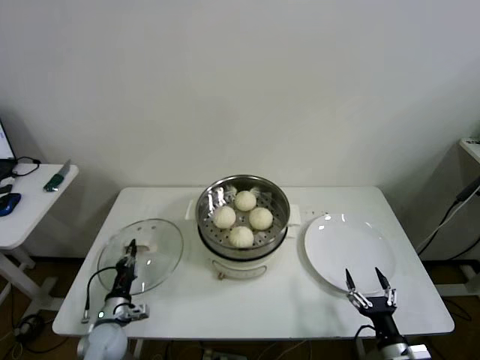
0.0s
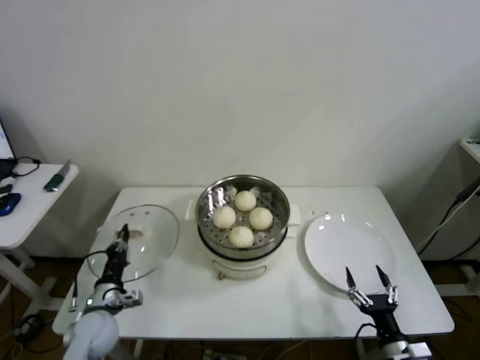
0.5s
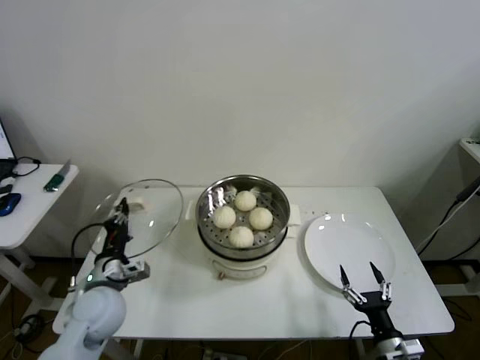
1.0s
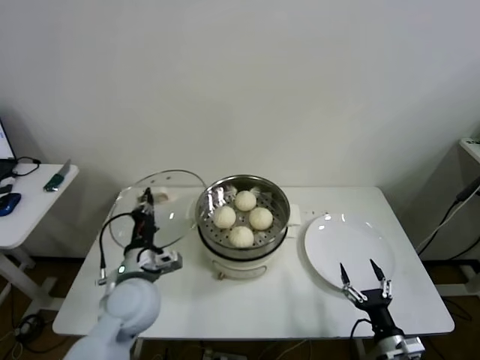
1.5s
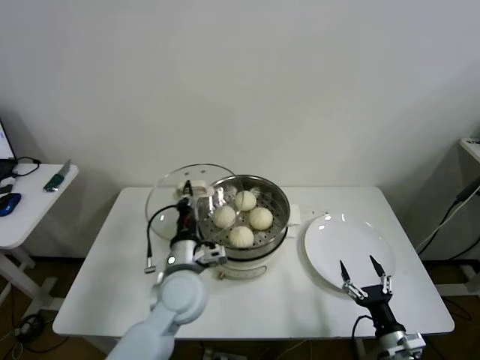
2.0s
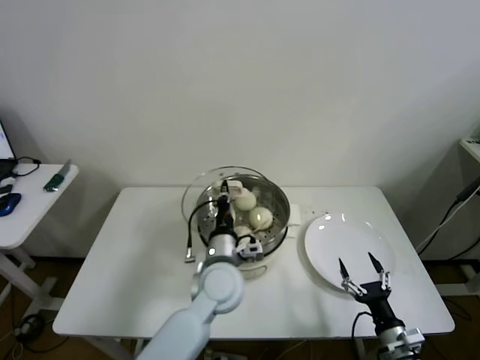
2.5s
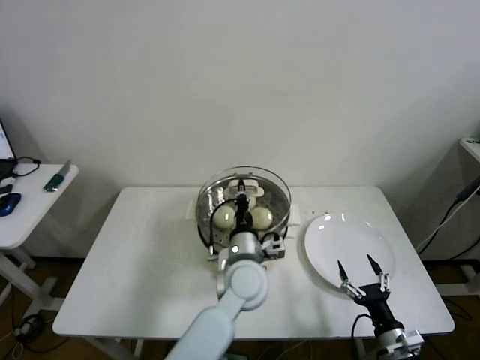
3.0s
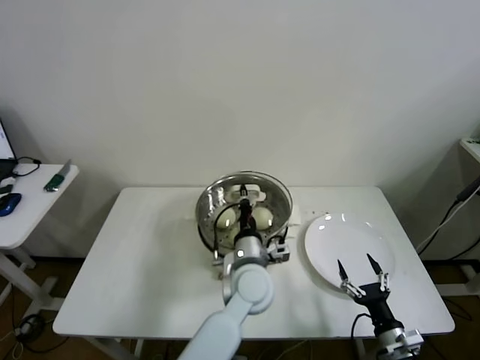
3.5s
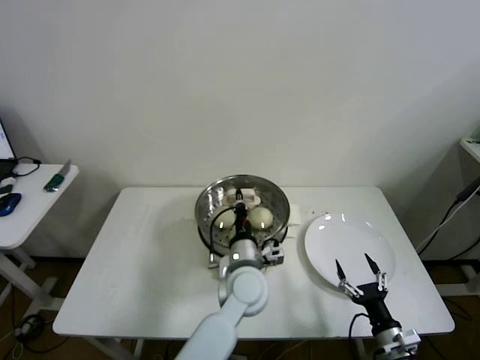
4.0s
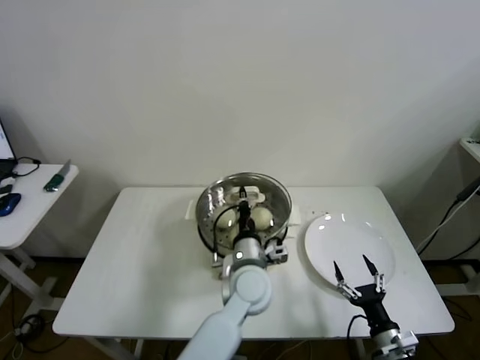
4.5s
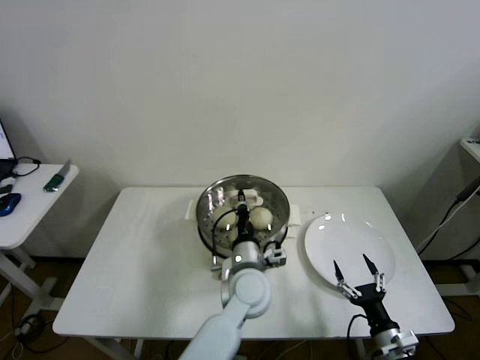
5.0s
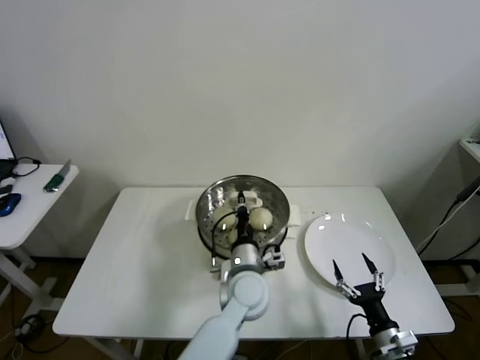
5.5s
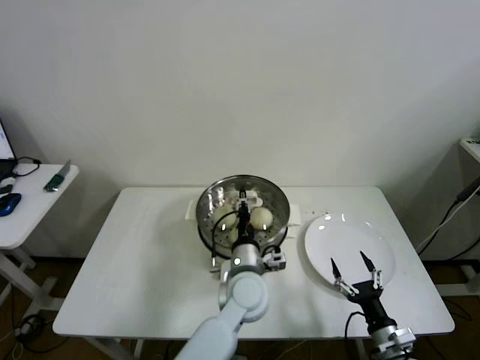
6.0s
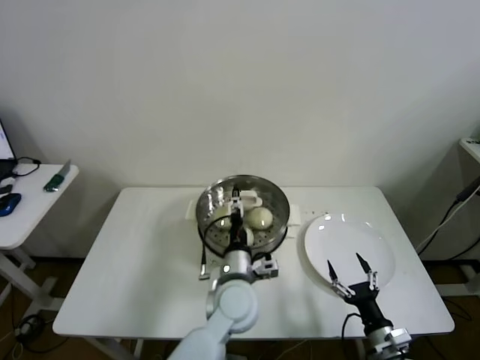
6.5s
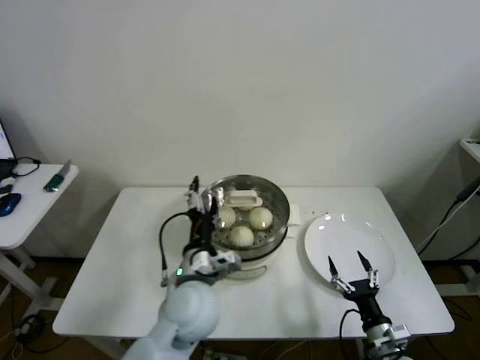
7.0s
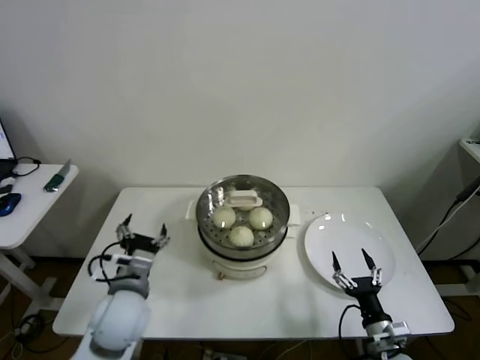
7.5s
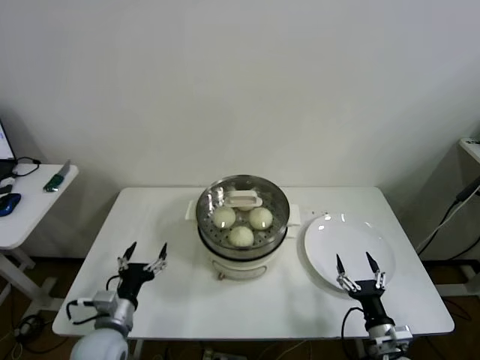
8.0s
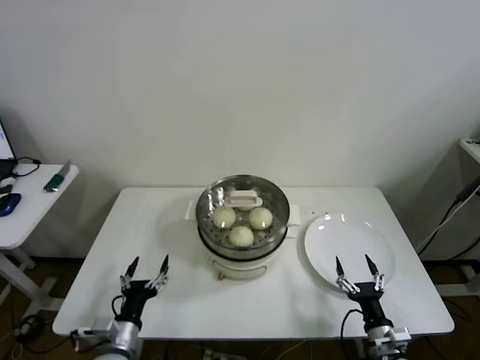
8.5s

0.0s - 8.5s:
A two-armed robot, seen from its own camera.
Step, 0.0s - 5.5s: Place the pot lid on the steamer with left gripper.
0.0s - 2.0s: The left gripper moves upward and to the right, roughly 30 cm.
2.0s - 4.0s: The left gripper goes roughly 15 cm to the right.
4.0s - 6.5s: The left gripper opens its fingers.
6.5s - 8.5s: The left gripper is displaced to the left and backward by about 30 cm.

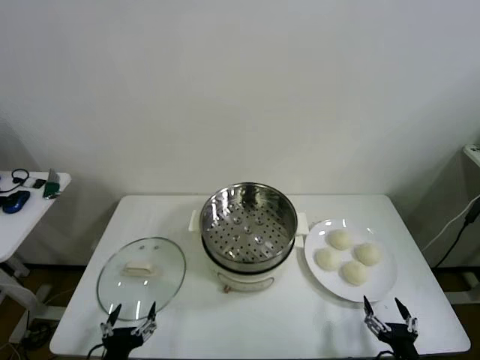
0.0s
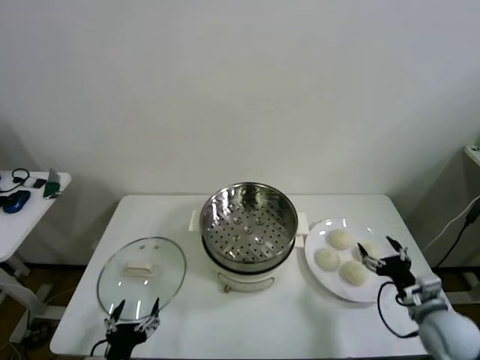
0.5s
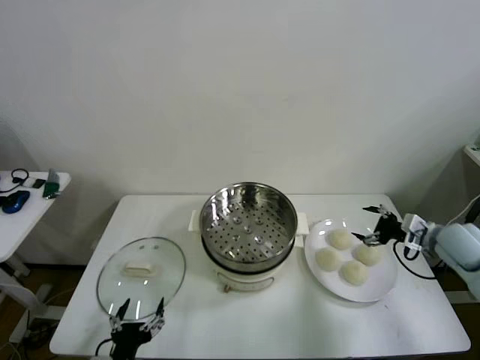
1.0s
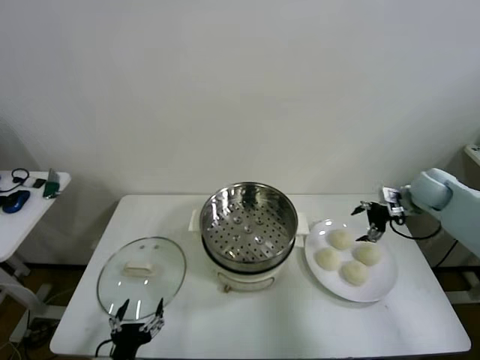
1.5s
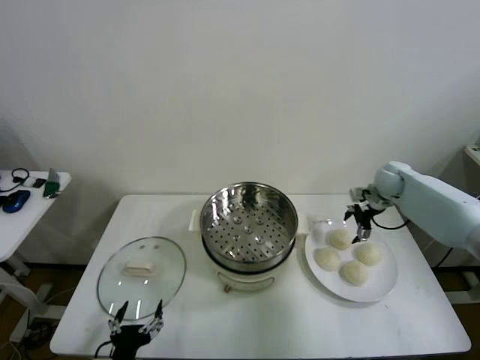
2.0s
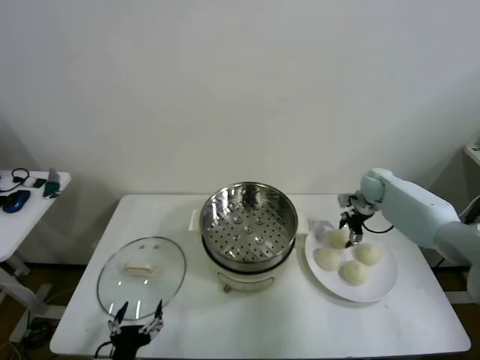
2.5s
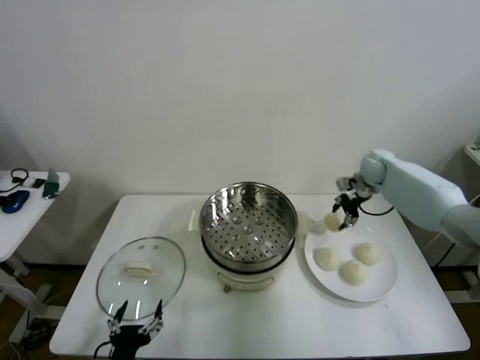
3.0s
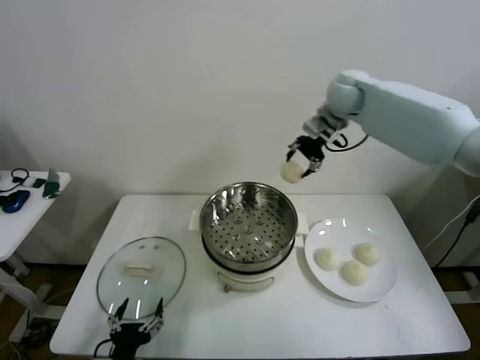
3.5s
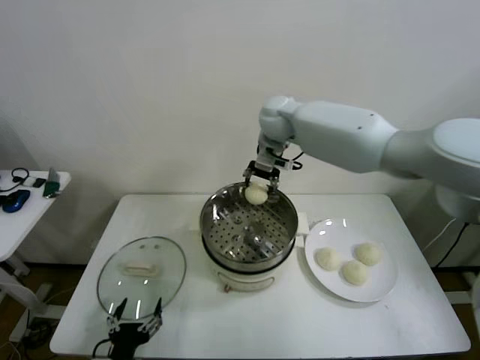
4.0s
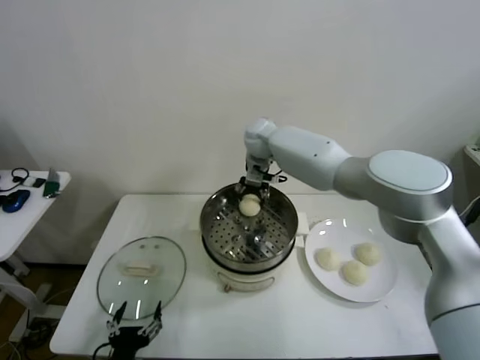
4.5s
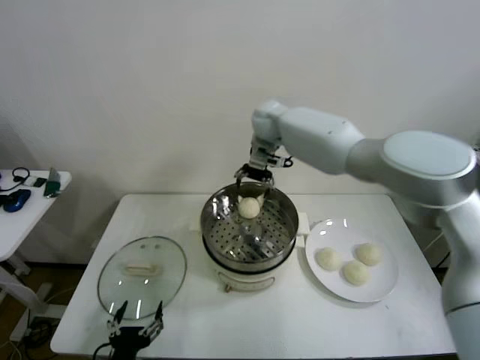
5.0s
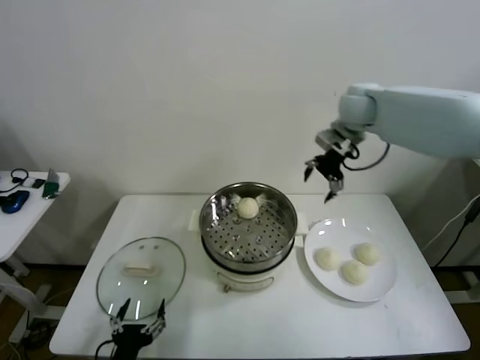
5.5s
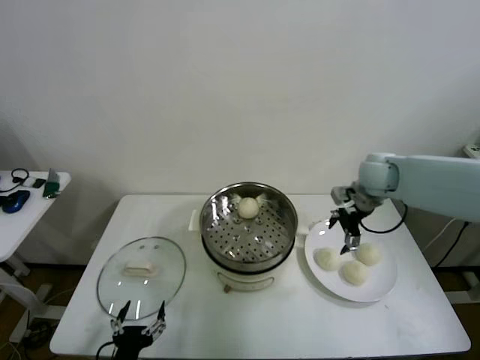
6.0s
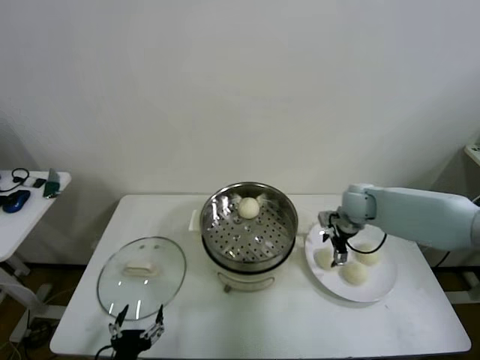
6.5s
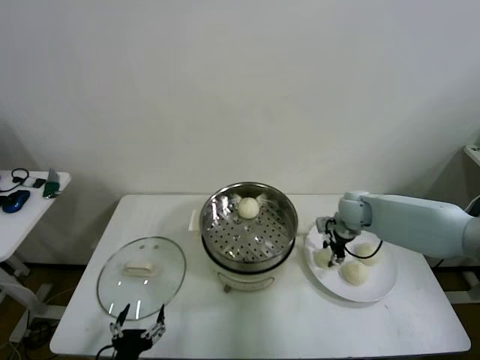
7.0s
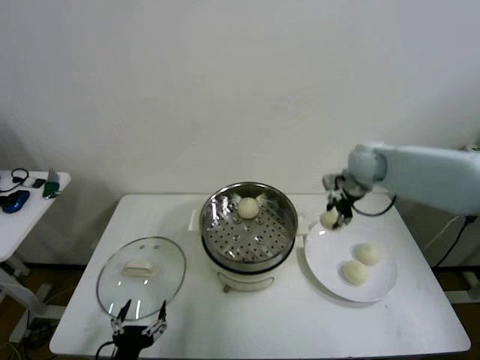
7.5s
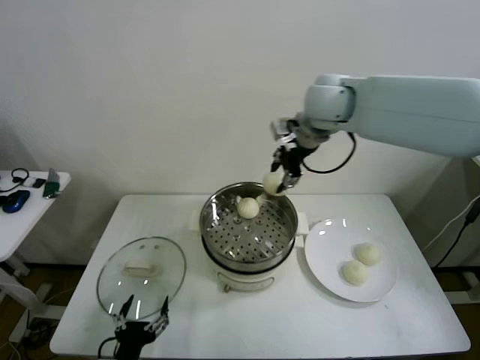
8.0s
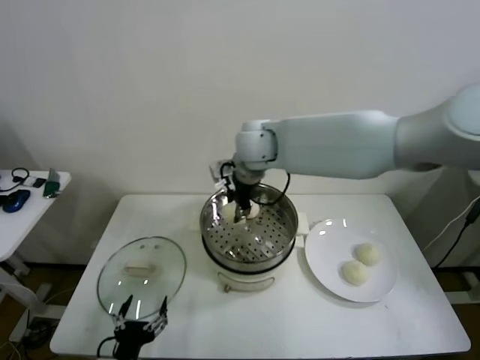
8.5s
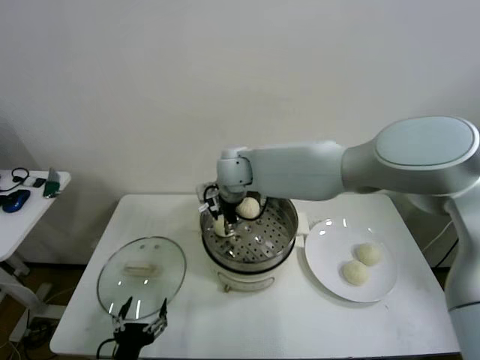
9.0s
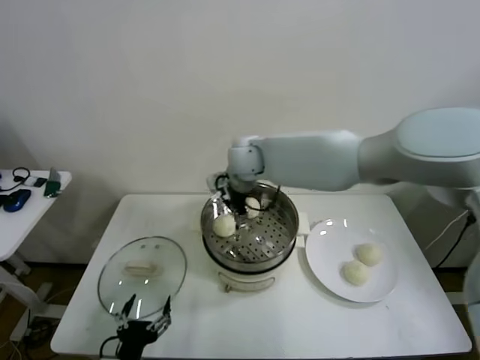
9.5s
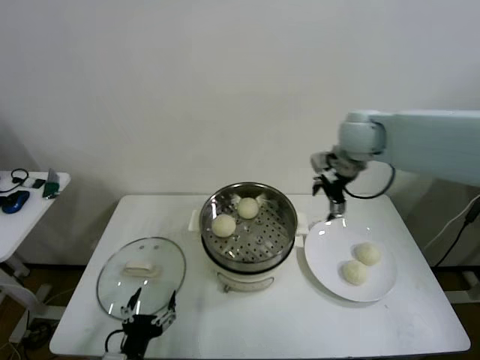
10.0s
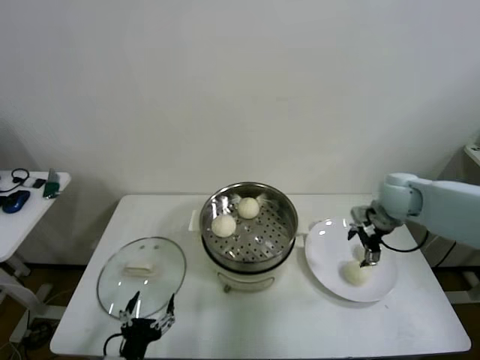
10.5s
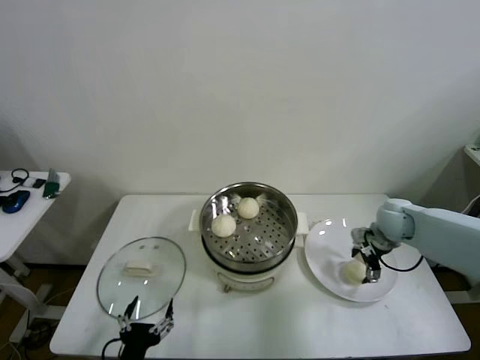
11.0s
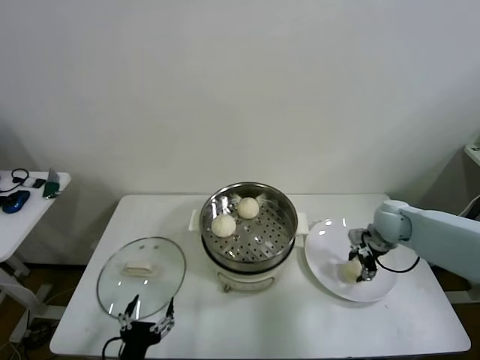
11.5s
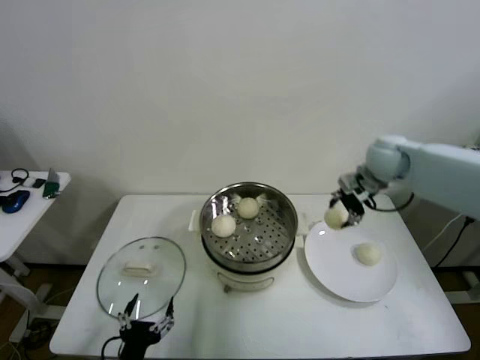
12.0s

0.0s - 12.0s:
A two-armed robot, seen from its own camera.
Step, 0.0s - 2.5s: Grasp the baozi in the plate with right gripper.
Step, 3.0s - 4.5s: Place the baozi on the steamer with right gripper.
Step, 5.0s - 7.0s: Grasp the baozi in the plate with right gripper.
Step, 7.5s - 9.0s: Place the baozi on the steamer with right gripper.
Step, 9.5s - 11.0s: Grasp the baozi in the plate with right gripper.
2.0s - 4.0s: The right gripper is displaced to the left and upward by some 35 cm, and closes up.
4.0s - 6.0s: The right gripper heads to the right and downward, covering roughly 25 cm, and opens up.
6.0s - 8.0s: The right gripper heads upward and to the left, covering roughly 25 cm, and closes.
8.0s - 10.0s: The right gripper goes some 15 cm to the right and downward, and opens its fingers.
10.0s - 12.0s: The right gripper reaches some 20 cm downward, then returns, and closes up.

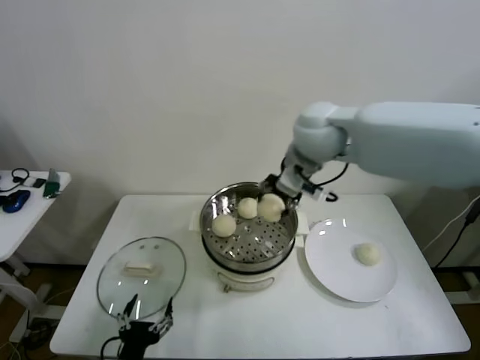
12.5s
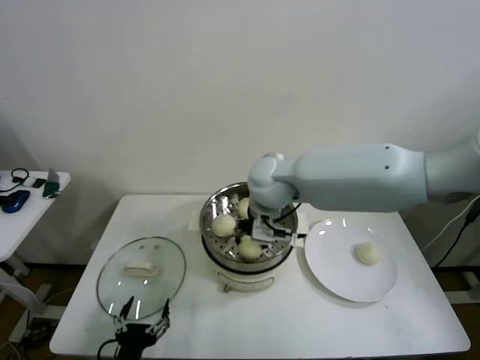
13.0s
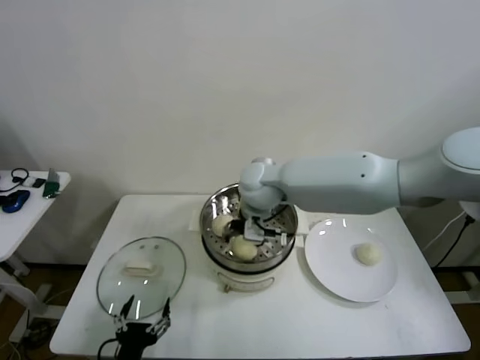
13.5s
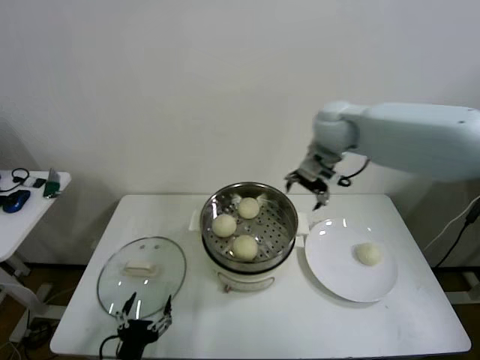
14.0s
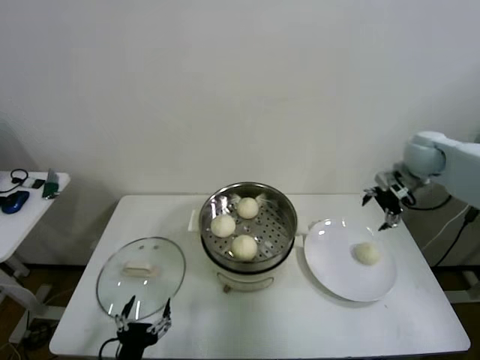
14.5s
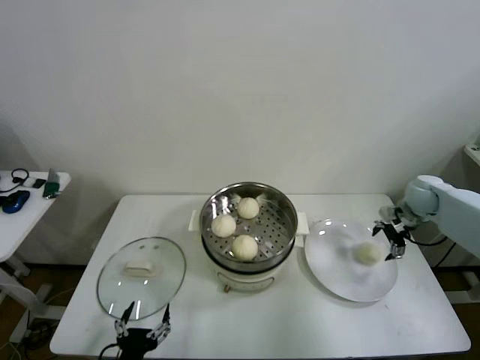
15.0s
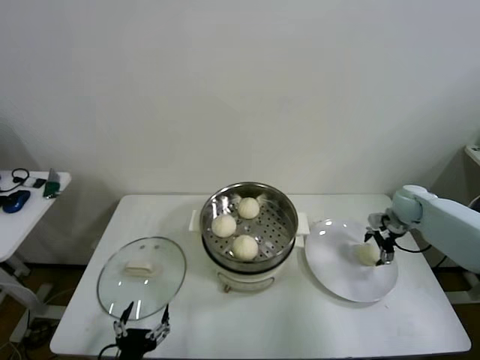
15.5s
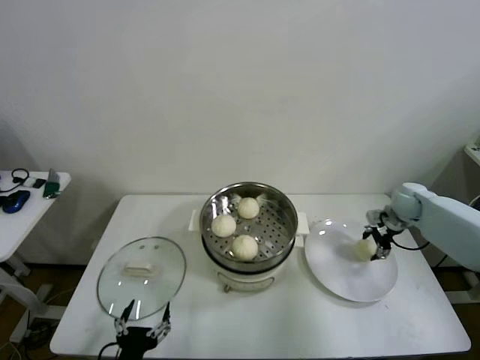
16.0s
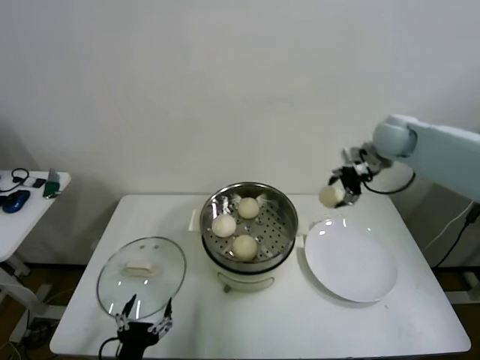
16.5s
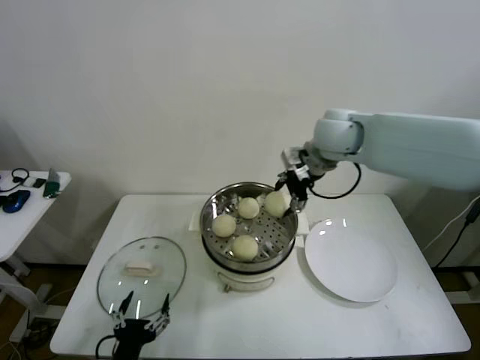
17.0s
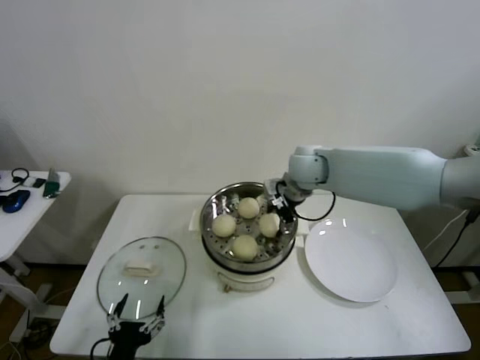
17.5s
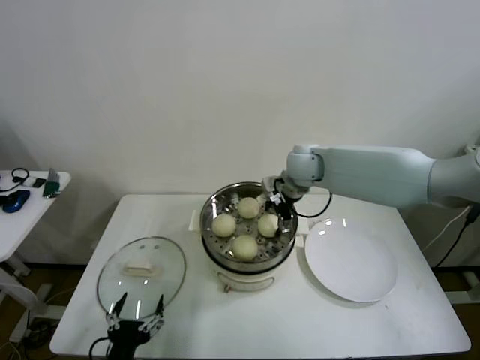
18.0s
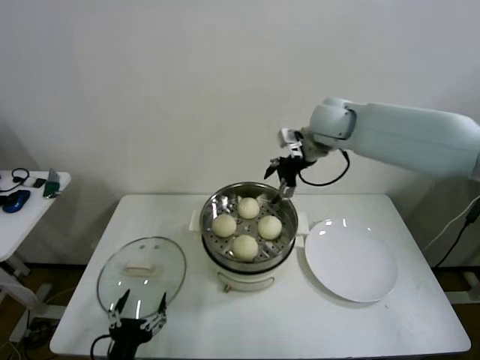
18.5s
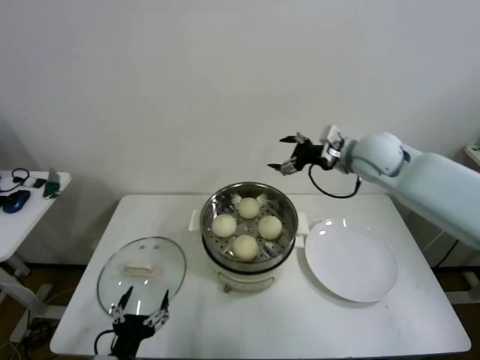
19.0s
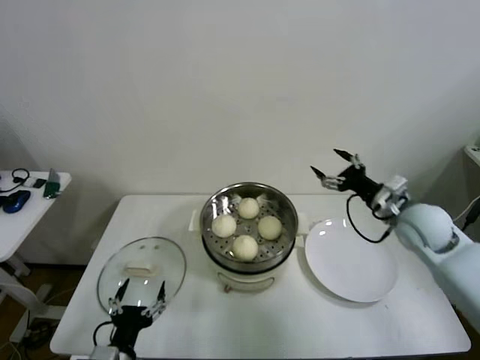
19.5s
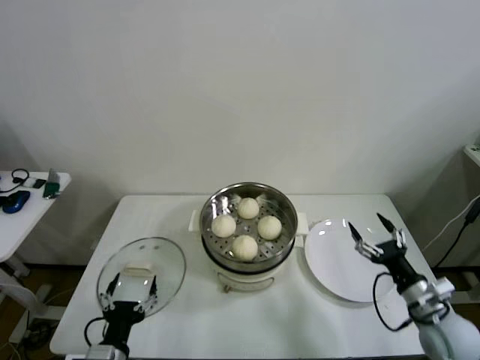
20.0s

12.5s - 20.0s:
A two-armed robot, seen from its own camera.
Step, 14.0s - 15.5s: Grasp the baozi in the plate with right gripper.
Step, 16.0s - 17.5s: Place the baozi on the steamer with right gripper.
12.5s - 14.5s: The right gripper shifts about 30 cm to the right, and opens up.
14.5s - 16.5s: The right gripper is displaced to the left by some 10 cm, travels downward and back again, about 15 cm each way, and closes its fingers.
16.5s - 18.0s: The right gripper travels to the left by approximately 20 cm, and opens its fingers.
18.0s - 20.0s: The right gripper is displaced backward, to the right and downward by some 40 cm.
